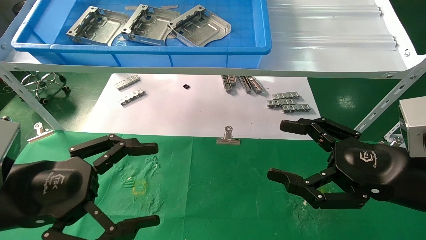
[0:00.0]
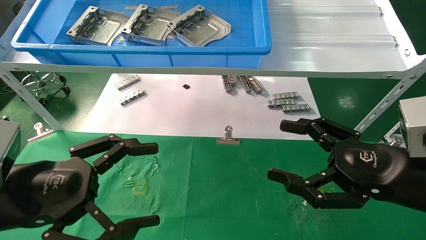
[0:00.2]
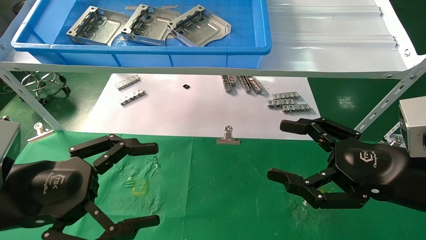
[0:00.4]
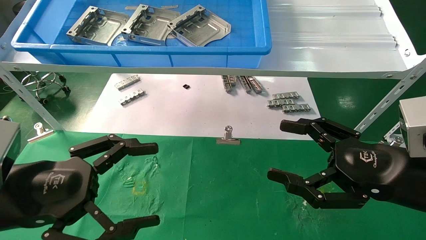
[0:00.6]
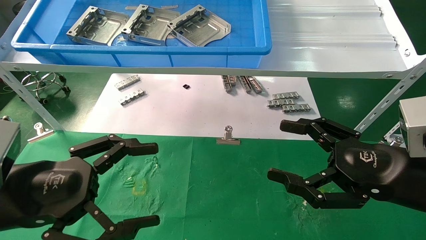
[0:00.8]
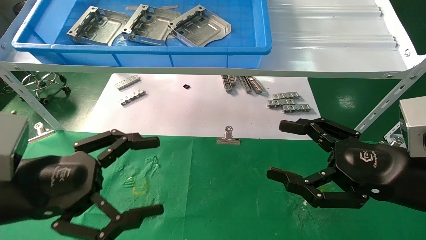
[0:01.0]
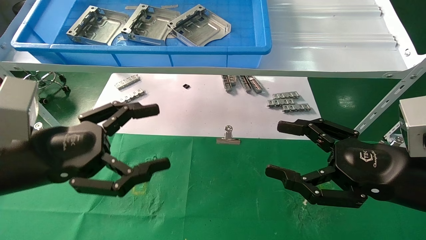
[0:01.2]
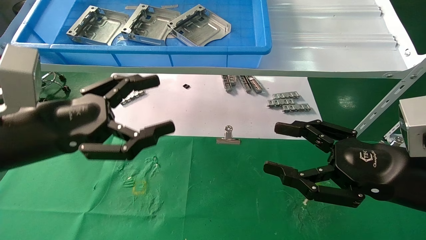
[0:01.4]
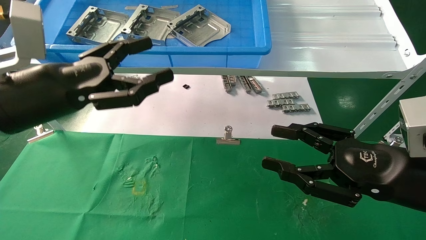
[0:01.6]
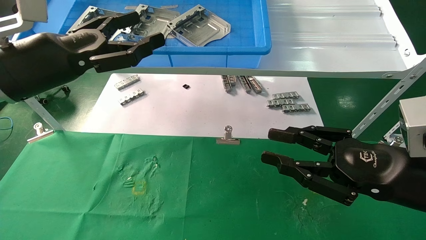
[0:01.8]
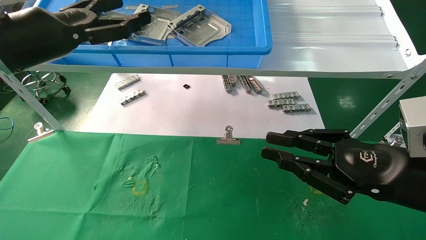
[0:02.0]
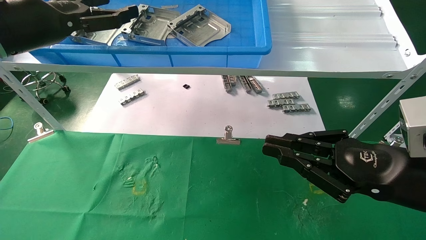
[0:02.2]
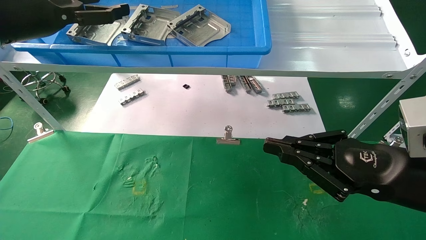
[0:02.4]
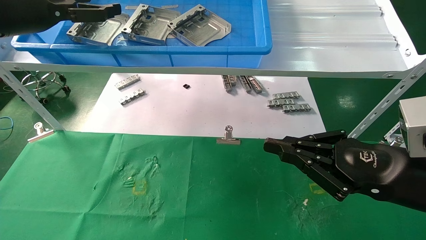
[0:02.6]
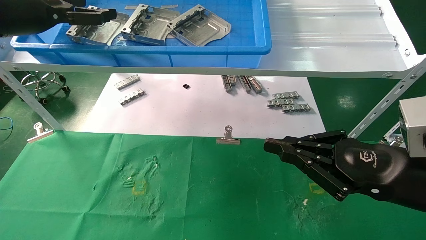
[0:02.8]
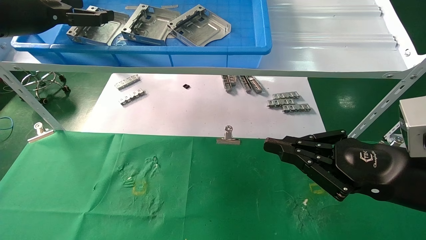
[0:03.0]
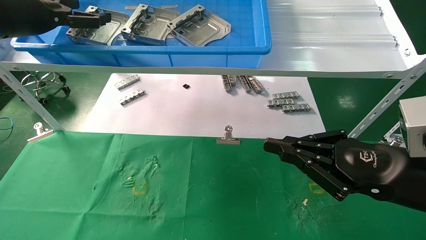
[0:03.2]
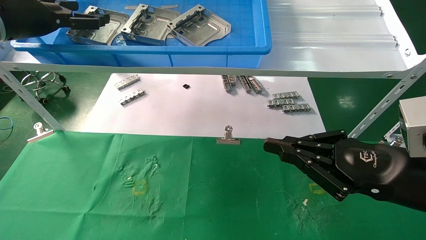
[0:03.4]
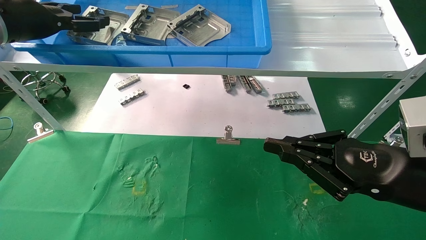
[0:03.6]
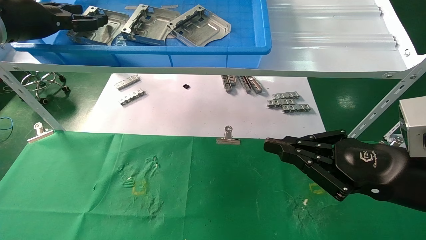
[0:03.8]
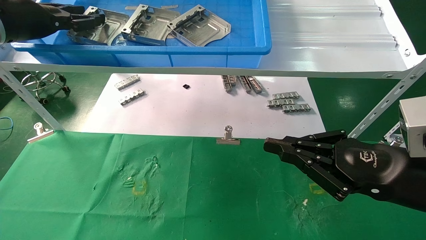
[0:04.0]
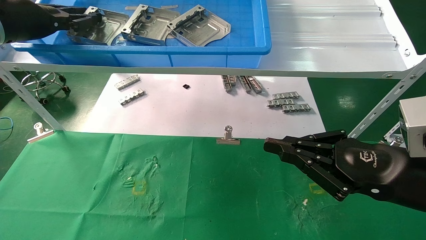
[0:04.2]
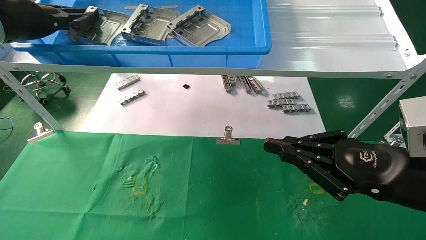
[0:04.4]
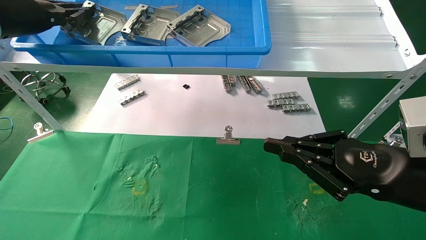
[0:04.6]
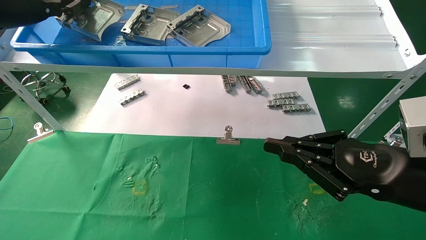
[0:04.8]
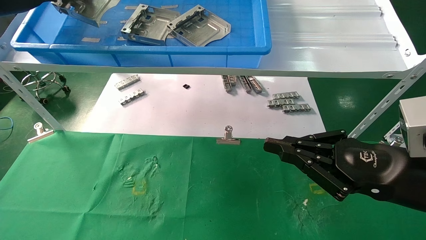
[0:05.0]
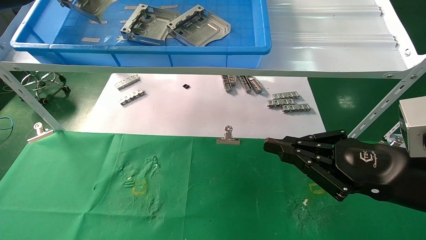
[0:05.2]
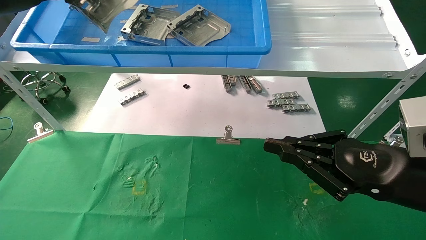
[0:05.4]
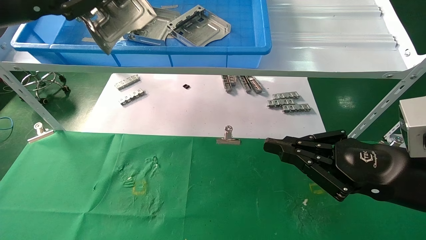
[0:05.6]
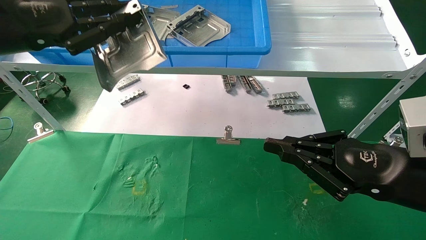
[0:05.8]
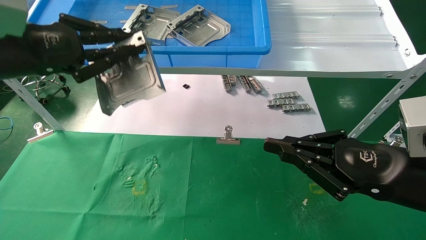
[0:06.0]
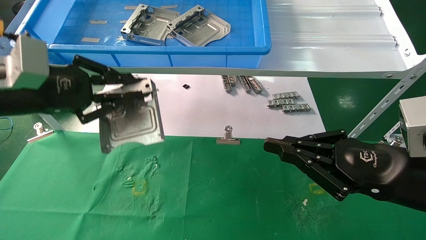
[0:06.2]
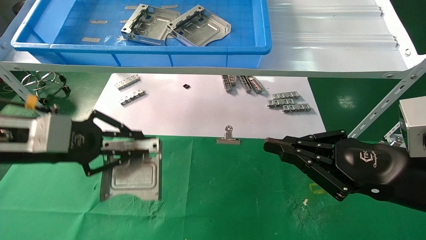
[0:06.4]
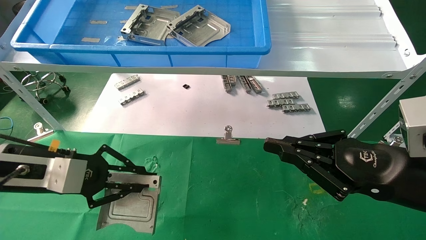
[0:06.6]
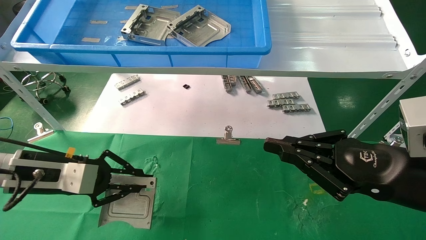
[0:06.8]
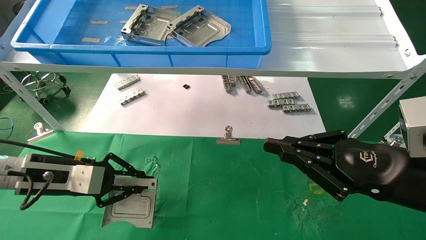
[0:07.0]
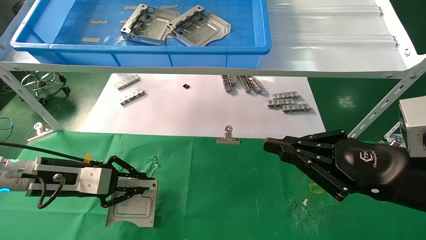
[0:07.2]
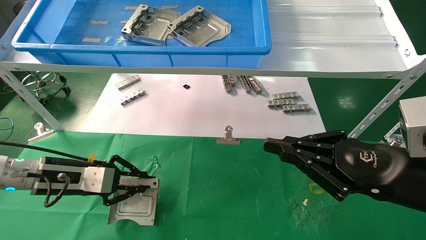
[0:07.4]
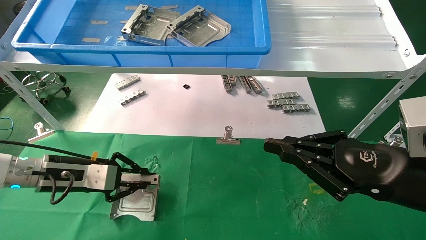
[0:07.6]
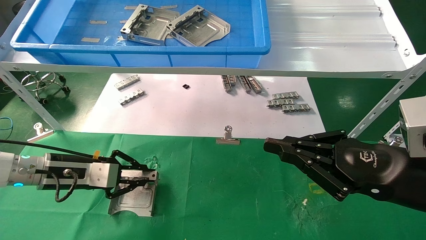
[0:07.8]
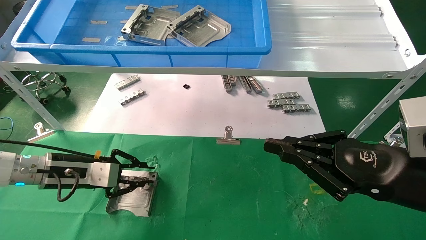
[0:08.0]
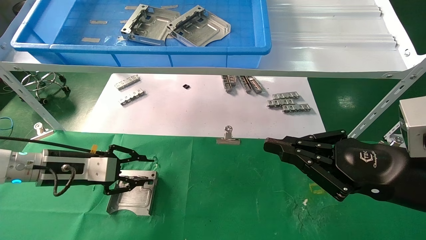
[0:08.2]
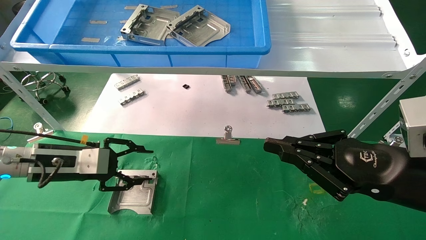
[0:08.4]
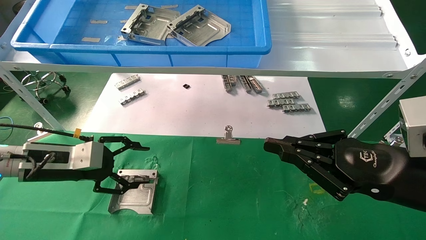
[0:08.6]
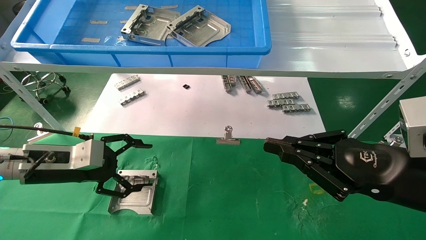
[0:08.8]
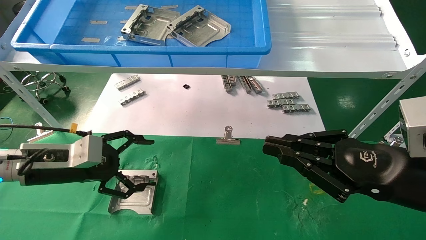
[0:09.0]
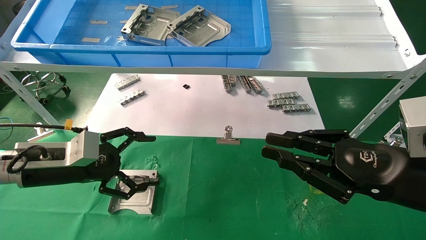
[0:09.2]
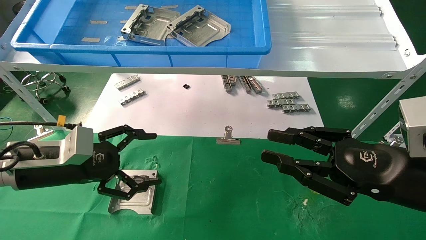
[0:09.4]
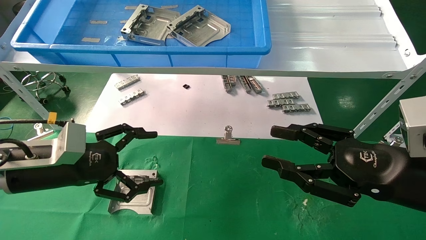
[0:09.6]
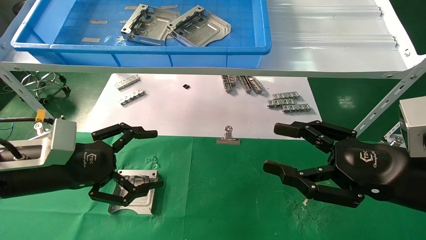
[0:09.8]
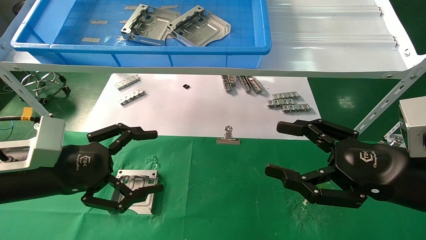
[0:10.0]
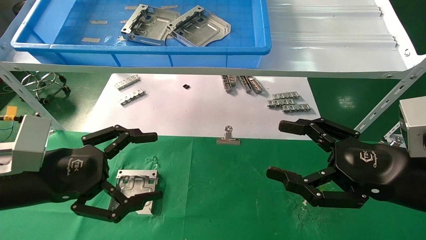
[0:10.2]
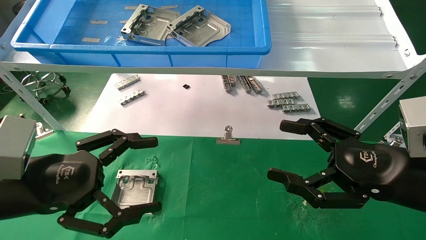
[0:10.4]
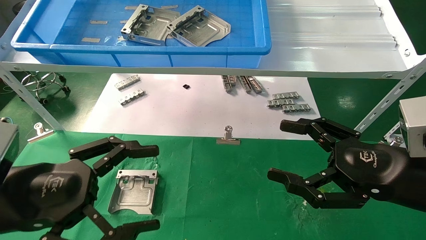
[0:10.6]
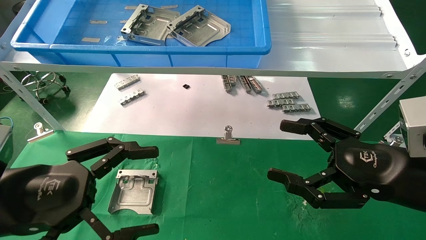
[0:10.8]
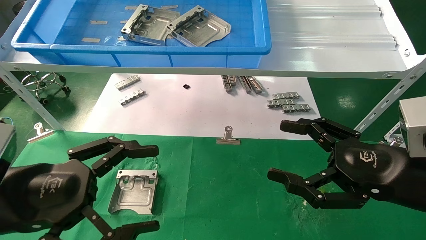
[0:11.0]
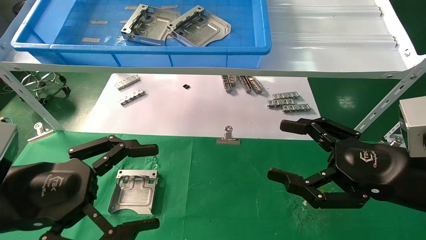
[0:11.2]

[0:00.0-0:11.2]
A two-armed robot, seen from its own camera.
Task of the whole recording: use the mechanical arm to pick up the parts and place them on the table.
Step, 0:01.4 to 0:04.4: Pick up the hard drive bracket from the feeding area.
Step, 0:04.6 to 0:08.0: Place the hard drive bracket into the box.
0:00.0 to 0:01.6: The left gripper is displaced upward and forward by some 10 cm.
0:01.6 to 0:03.2: The right gripper closes up, while the left gripper moves upward, forward and to the left, roughly 20 cm.
0:03.2 to 0:04.8: The left gripper closes up.
0:04.8 to 0:06.4: The left gripper heads downward and backward, covering some 20 cm.
0:06.4 to 0:08.0: The left gripper is displaced downward and forward by roughly 15 cm.
0:08.0 to 0:09.6: The right gripper opens up. Meanwhile the left gripper moves backward, approximately 5 cm, and opens.
0:09.6 to 0:11.2: The left gripper moves backward, about 10 cm; the right gripper opens up.
